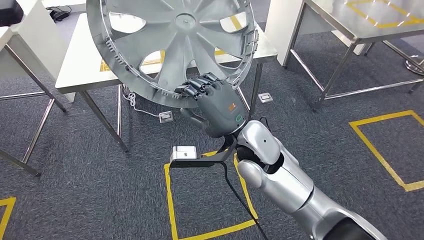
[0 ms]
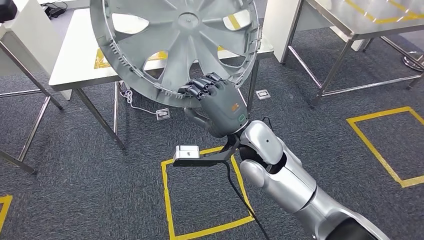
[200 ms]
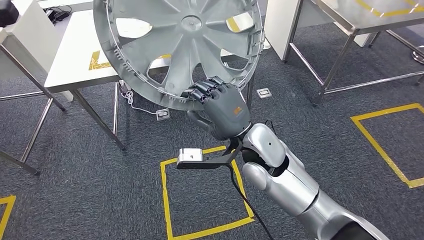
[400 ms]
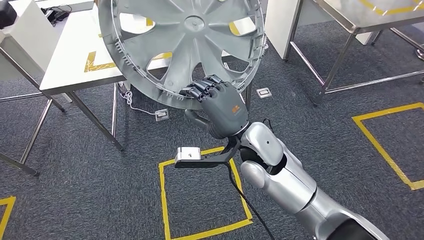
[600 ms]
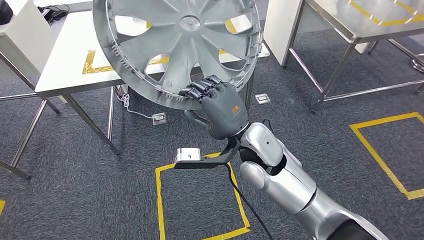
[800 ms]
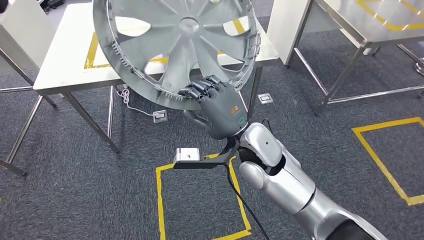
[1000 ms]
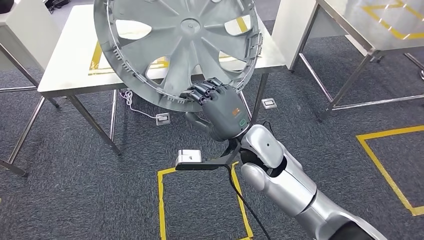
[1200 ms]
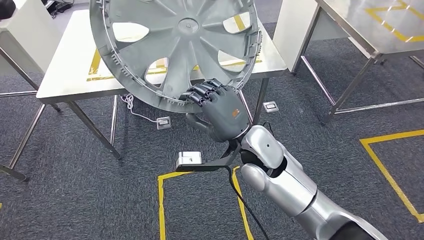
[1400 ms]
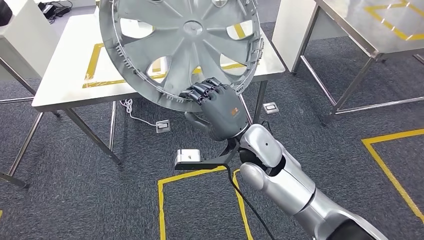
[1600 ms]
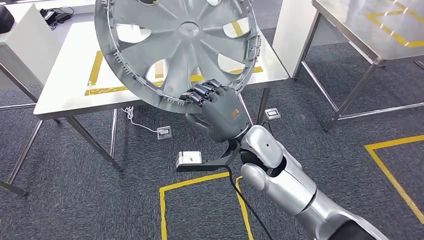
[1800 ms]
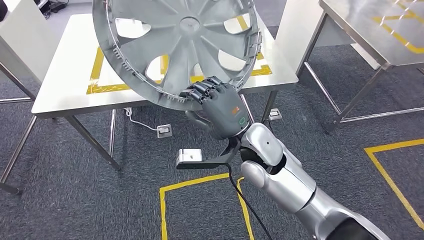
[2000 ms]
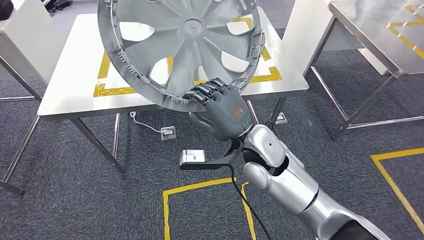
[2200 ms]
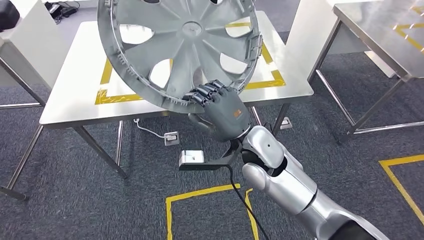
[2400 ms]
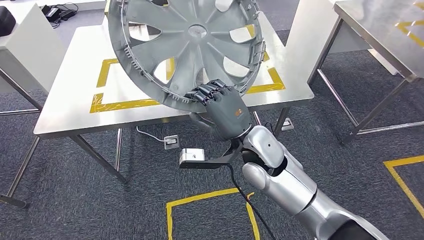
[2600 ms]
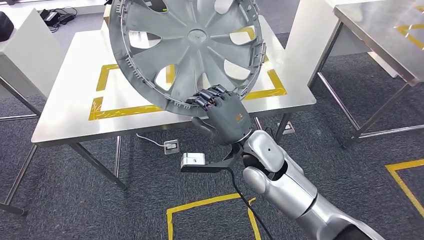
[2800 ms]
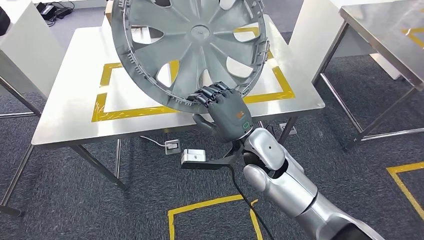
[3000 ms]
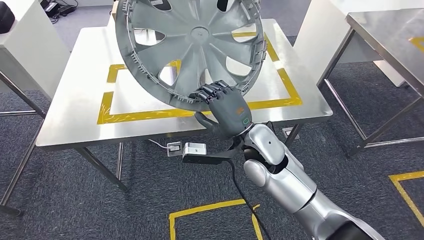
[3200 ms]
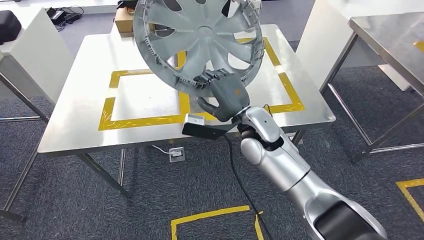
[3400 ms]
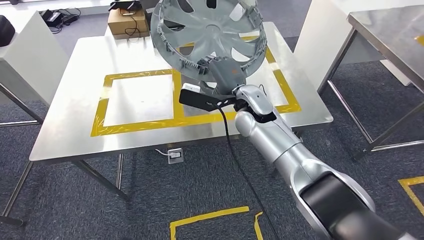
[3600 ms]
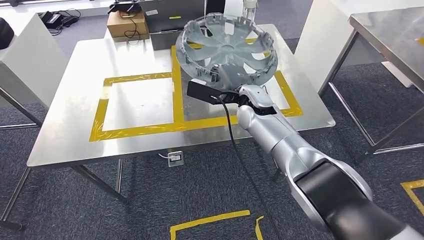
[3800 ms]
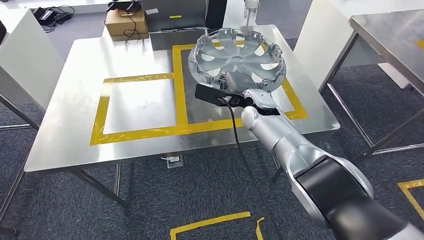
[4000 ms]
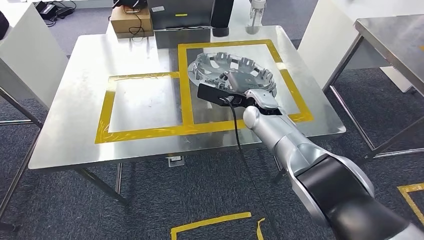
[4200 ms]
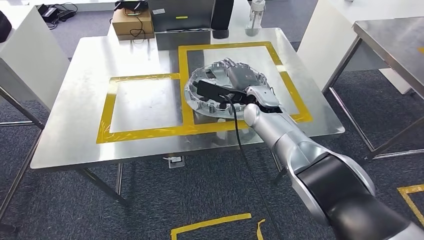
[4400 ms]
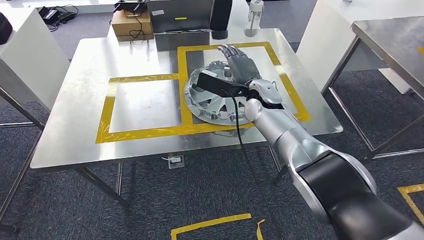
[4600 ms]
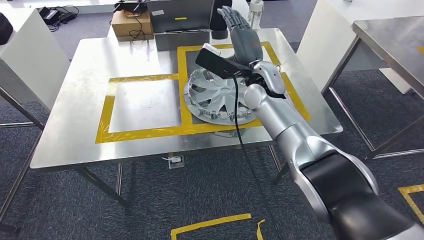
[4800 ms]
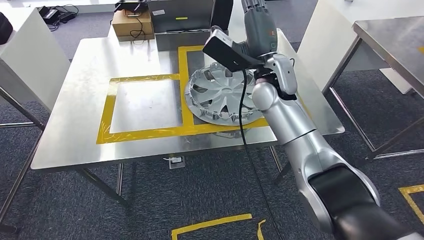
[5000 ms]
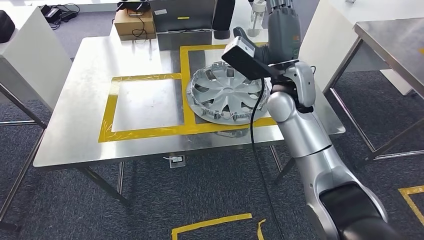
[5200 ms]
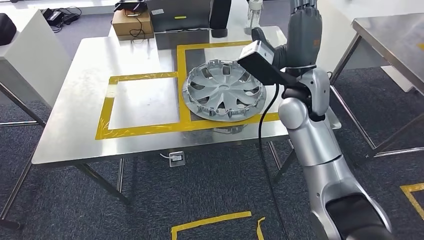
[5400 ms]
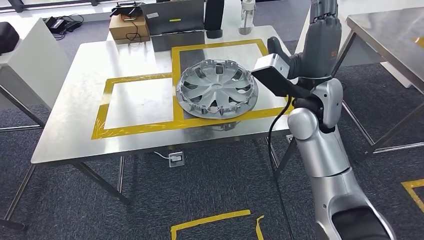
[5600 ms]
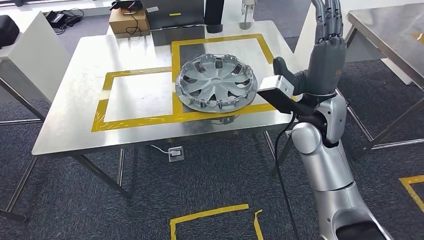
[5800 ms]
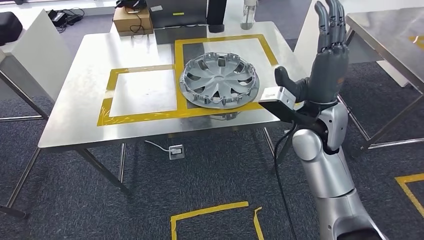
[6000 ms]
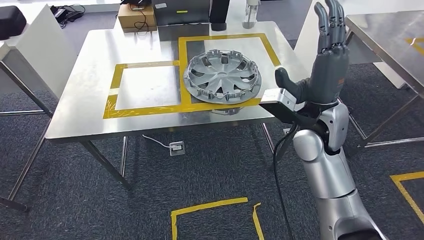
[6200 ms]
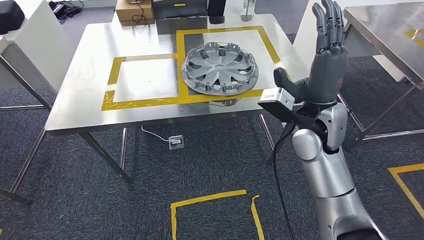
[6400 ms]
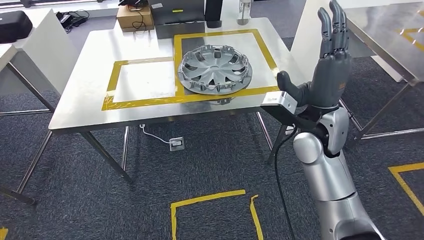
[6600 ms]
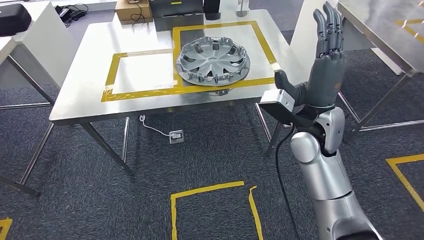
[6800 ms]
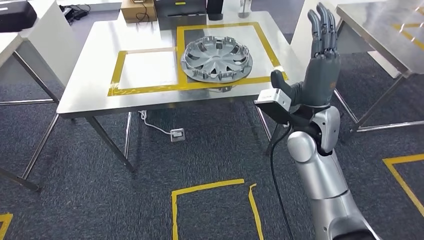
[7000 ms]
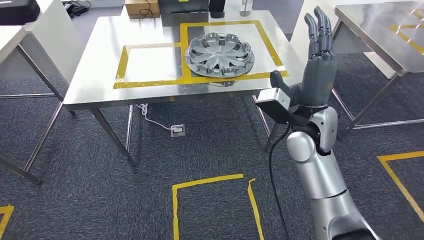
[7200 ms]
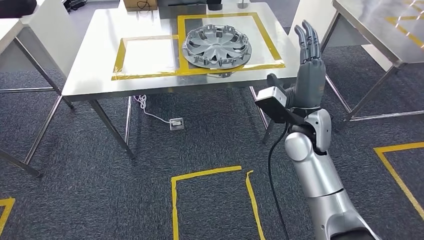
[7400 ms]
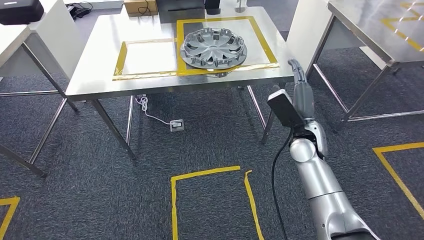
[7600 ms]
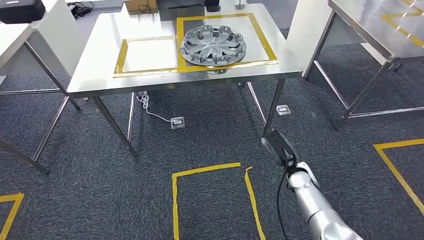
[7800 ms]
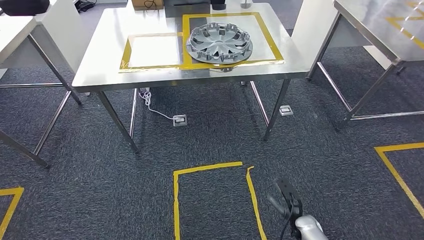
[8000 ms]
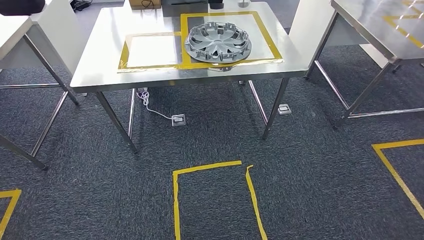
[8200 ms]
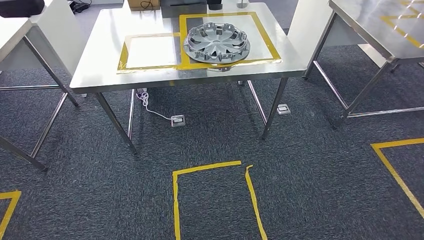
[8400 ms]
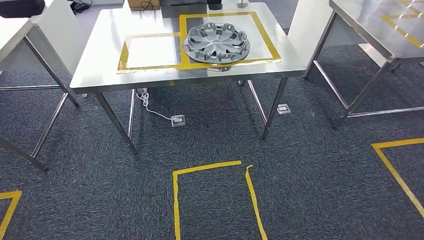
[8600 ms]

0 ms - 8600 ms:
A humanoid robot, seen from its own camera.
Step, 0 ms - 4600 ms: Insert the small component into the corresponding slot on the workbench.
Step, 5000 ms - 8600 ms: Return to the initial position at the workbench.
